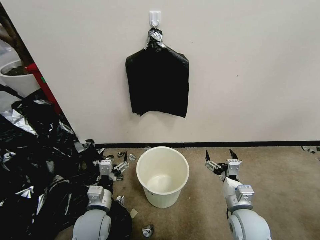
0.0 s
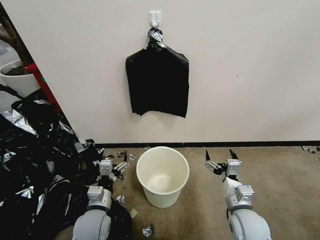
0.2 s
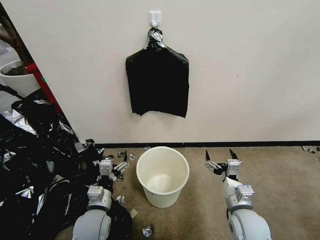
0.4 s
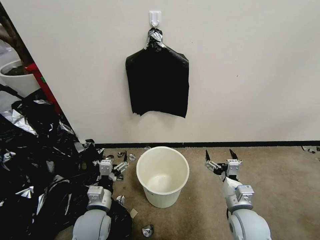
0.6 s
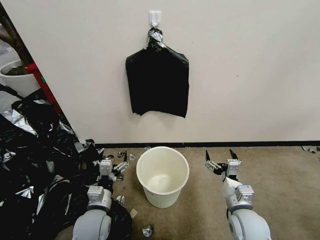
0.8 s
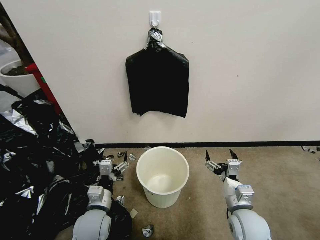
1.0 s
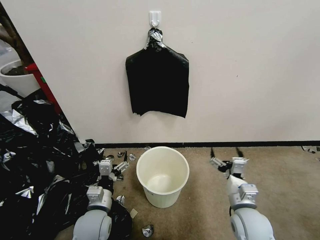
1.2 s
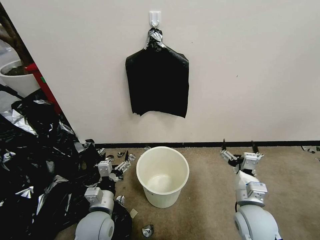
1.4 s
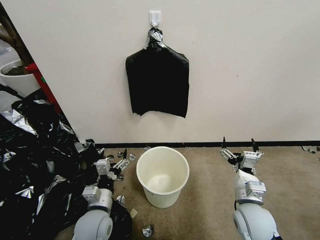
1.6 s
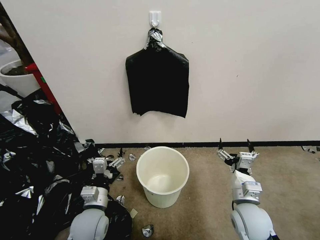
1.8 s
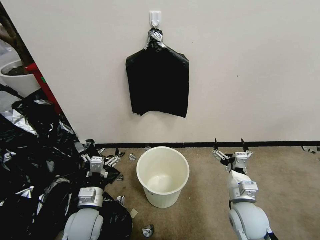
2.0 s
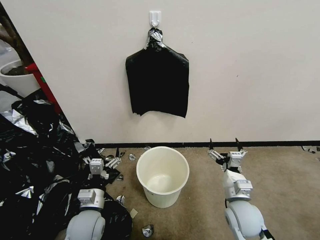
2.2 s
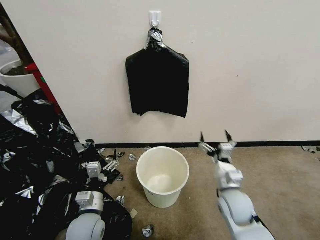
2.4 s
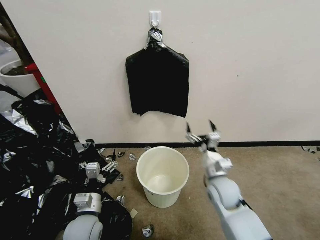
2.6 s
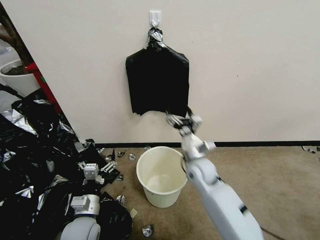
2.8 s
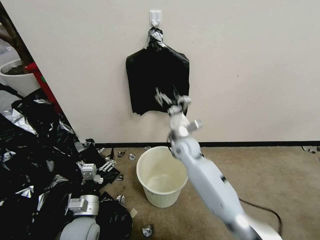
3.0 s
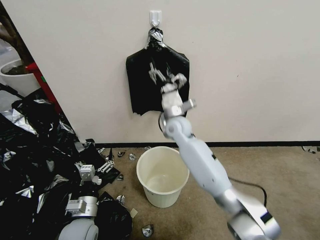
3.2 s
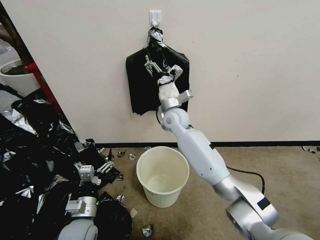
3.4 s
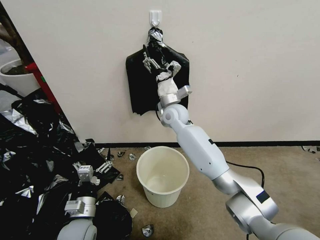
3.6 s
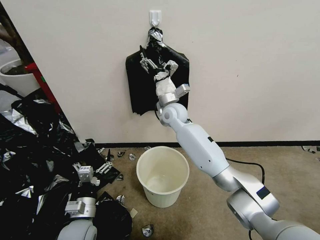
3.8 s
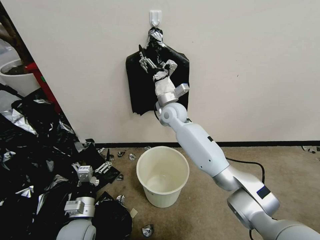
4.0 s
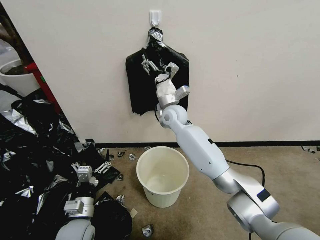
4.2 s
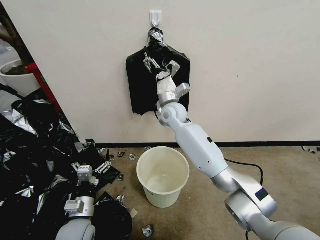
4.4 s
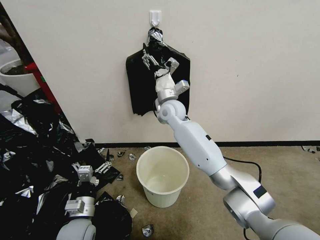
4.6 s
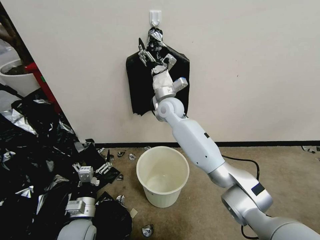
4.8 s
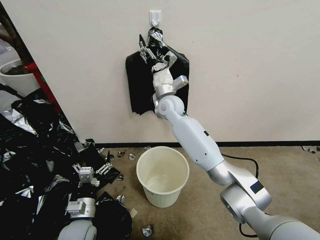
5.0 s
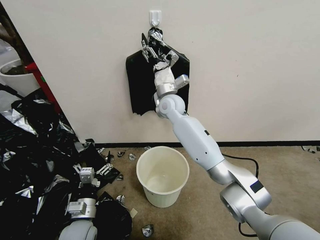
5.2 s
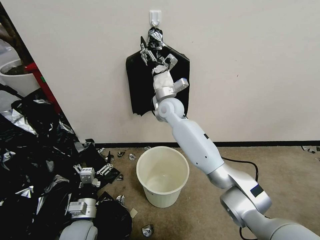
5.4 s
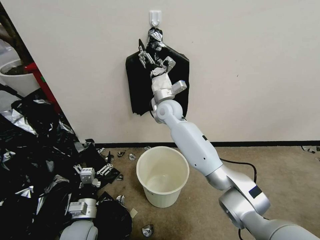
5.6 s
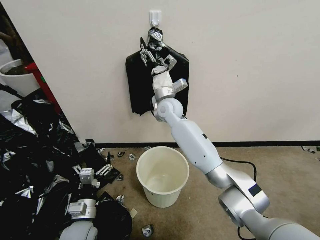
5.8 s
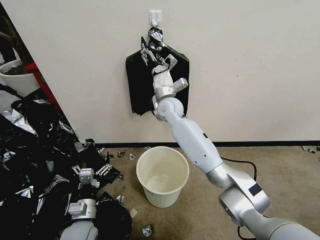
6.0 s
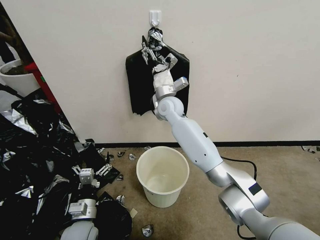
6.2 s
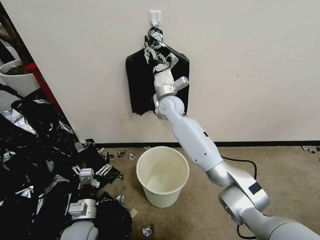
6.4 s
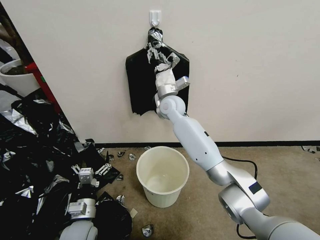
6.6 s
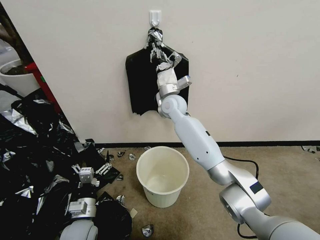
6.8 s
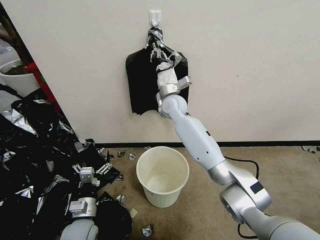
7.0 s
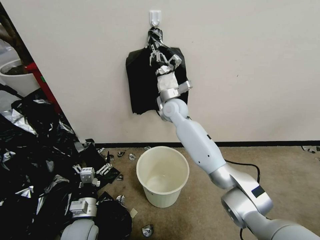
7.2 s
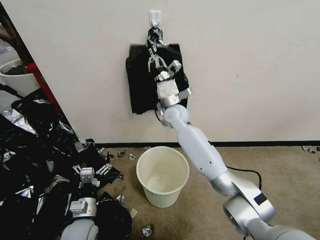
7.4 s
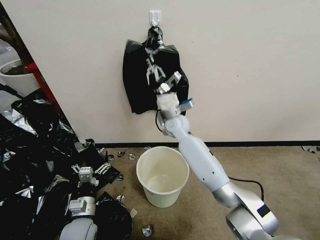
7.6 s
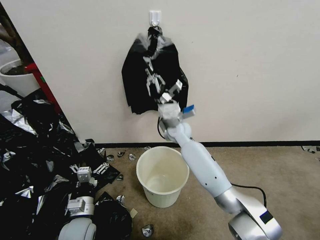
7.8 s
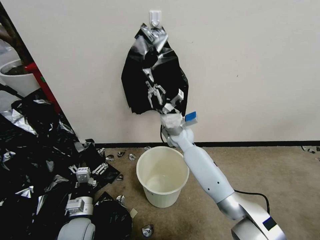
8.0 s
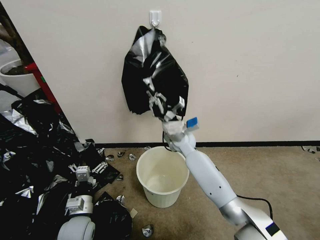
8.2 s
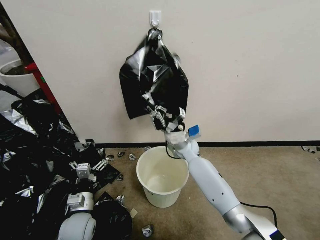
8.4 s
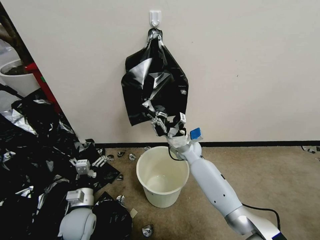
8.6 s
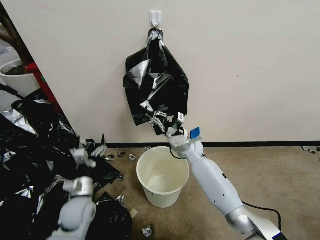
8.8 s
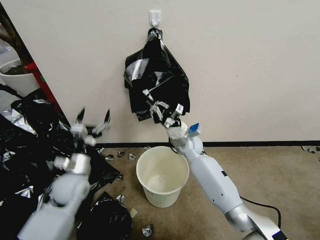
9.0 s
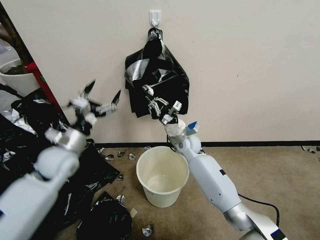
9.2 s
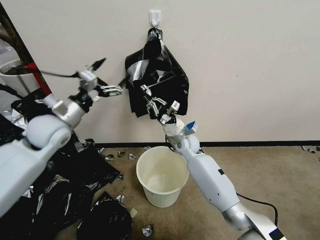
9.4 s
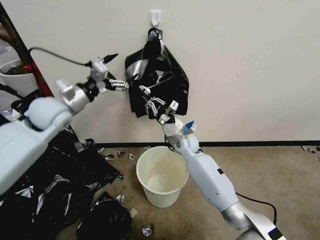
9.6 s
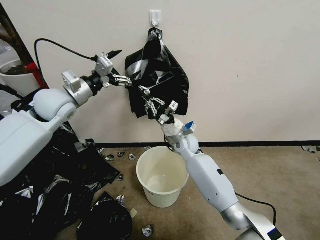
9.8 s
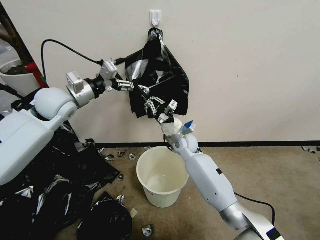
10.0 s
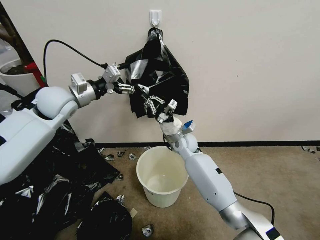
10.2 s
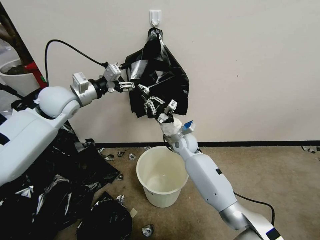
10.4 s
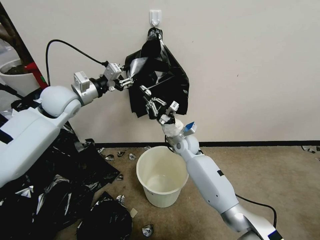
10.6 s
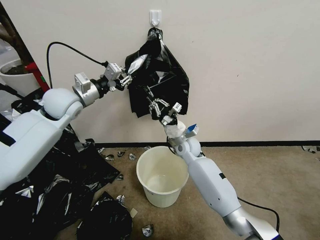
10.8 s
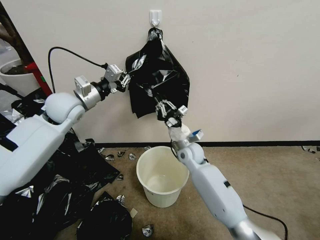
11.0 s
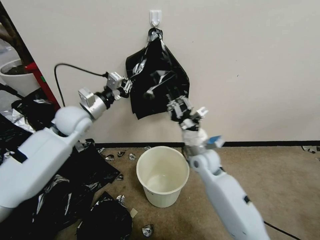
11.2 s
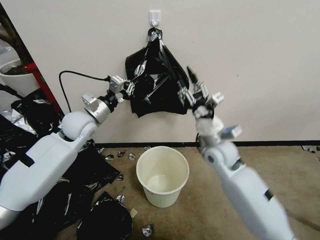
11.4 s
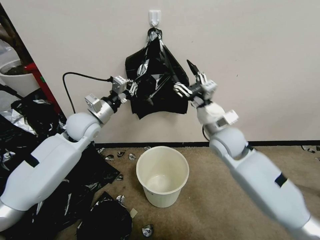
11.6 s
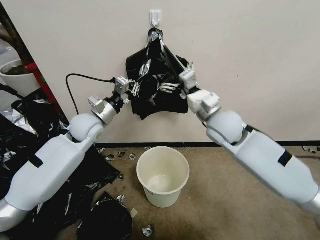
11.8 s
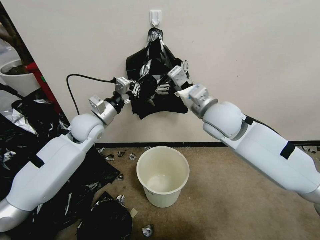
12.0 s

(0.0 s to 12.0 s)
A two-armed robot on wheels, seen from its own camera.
Task of the whole recording: Place a trash bag onto the trash bin.
1.6 s - 3.0 s: The right gripper moves forward and to the left, roughly 30 cm.
3.0 s - 4.4 s: The right gripper is displaced upward and forward by about 15 cm.
4.4 s - 6.0 s: The grippers move only a little.
6.0 s - 7.6 s: The right gripper heads downward, covering about 5 cm, and closes its fingers.
7.6 s - 9.0 s: The right gripper goes some 10 cm downward and to the right, while the left gripper shifts roughly 15 cm forward and upward.
9.0 s - 10.4 s: The left gripper travels upward and forward by approximately 25 cm, and closes up.
10.4 s - 12.0 s: The right gripper shifts about 20 cm upward, and opens up; the left gripper is displaced downward and to the right by roughly 10 cm, and closes up.

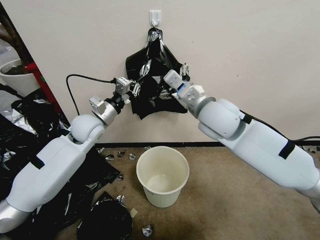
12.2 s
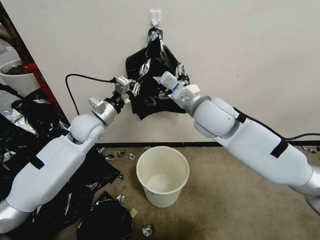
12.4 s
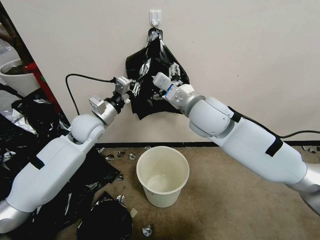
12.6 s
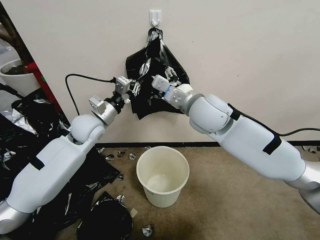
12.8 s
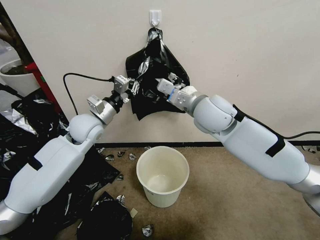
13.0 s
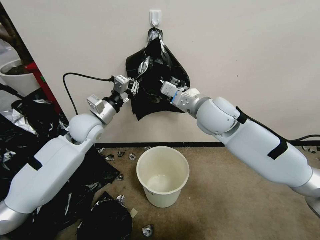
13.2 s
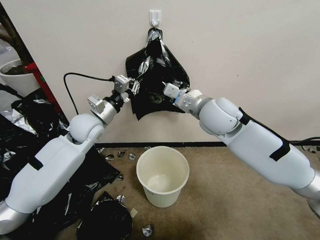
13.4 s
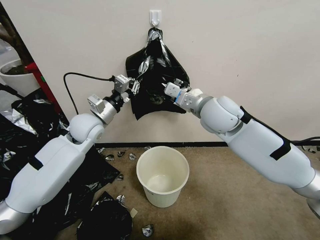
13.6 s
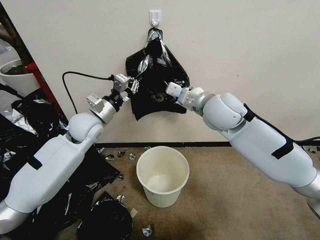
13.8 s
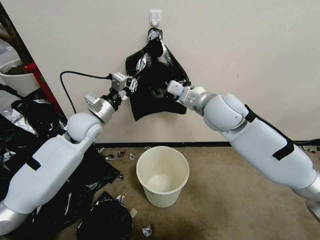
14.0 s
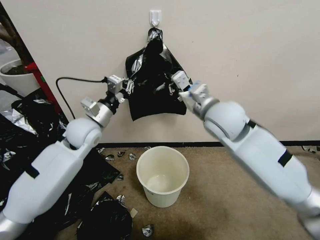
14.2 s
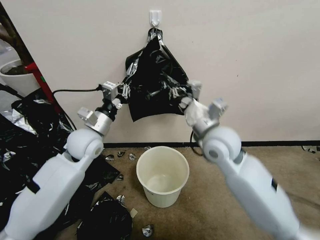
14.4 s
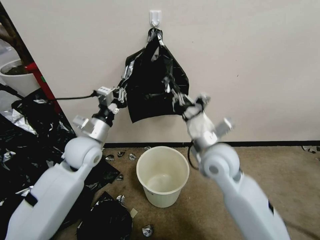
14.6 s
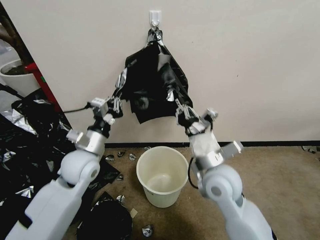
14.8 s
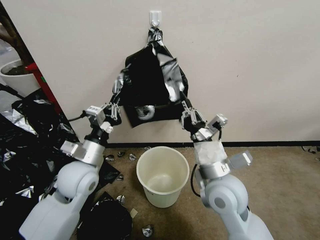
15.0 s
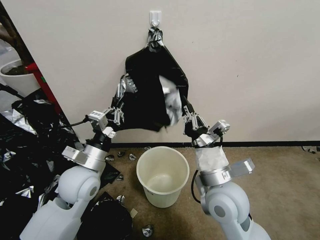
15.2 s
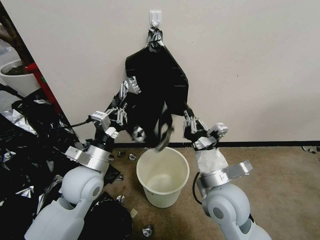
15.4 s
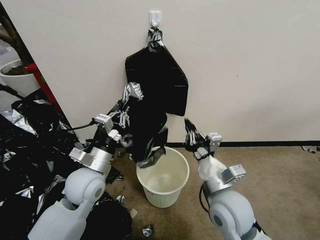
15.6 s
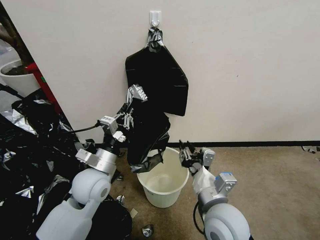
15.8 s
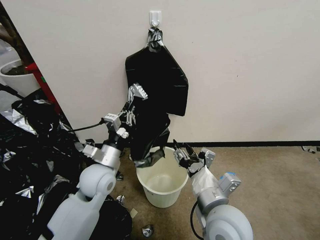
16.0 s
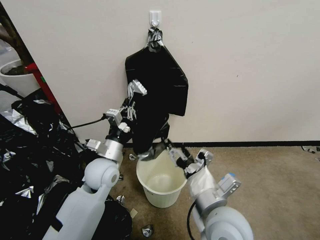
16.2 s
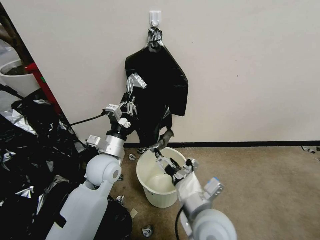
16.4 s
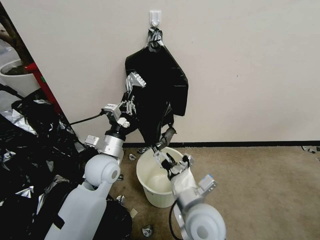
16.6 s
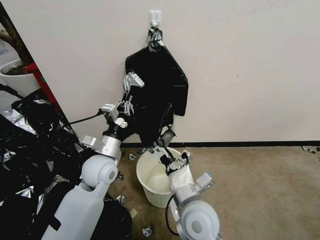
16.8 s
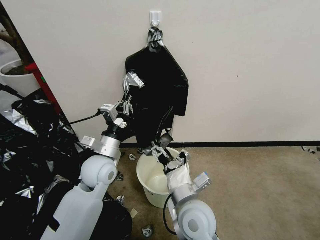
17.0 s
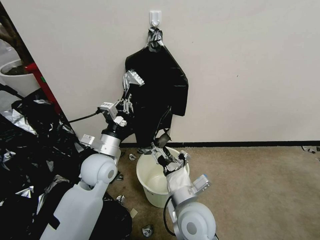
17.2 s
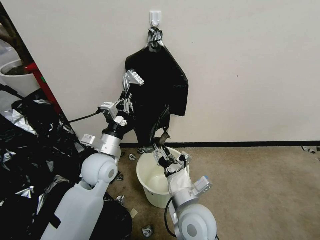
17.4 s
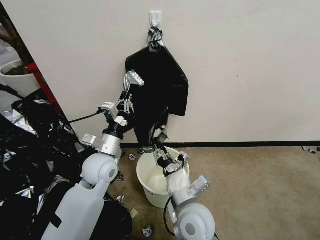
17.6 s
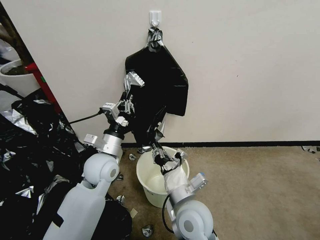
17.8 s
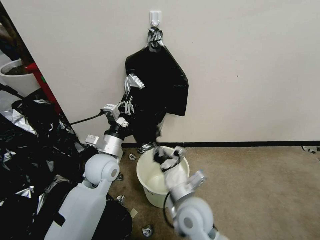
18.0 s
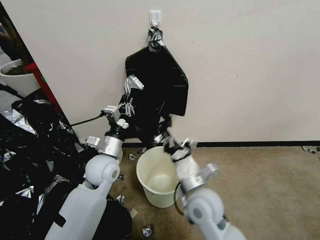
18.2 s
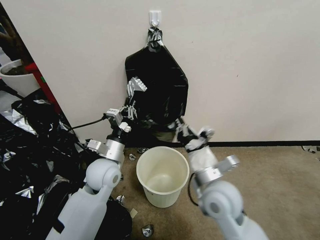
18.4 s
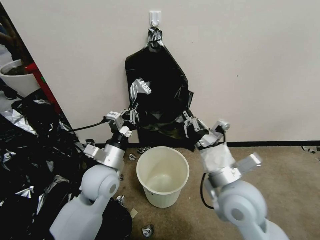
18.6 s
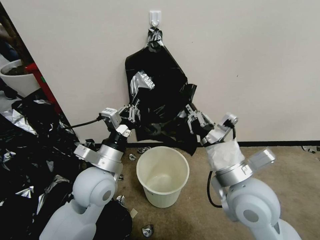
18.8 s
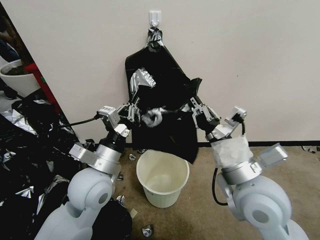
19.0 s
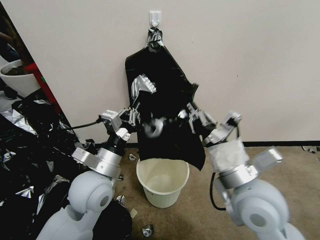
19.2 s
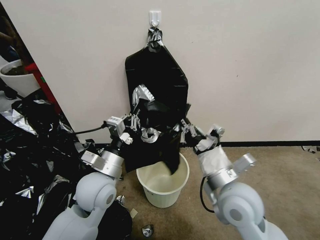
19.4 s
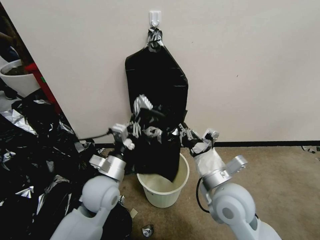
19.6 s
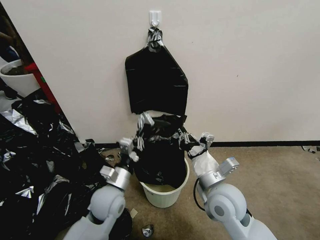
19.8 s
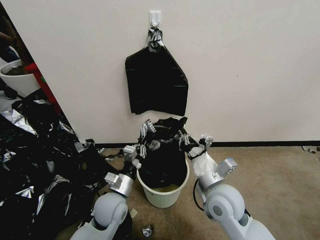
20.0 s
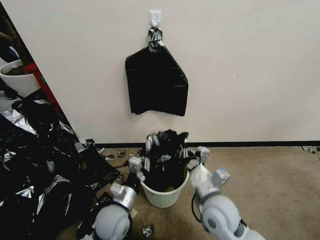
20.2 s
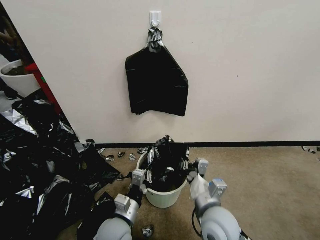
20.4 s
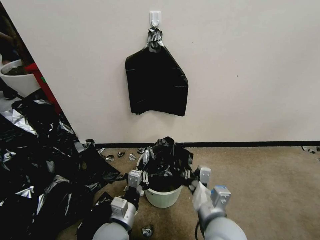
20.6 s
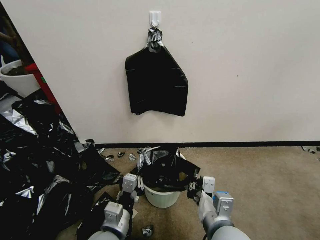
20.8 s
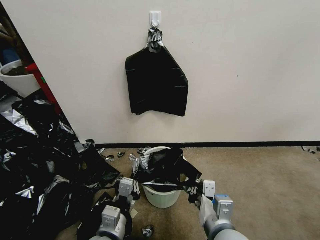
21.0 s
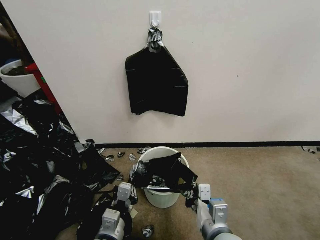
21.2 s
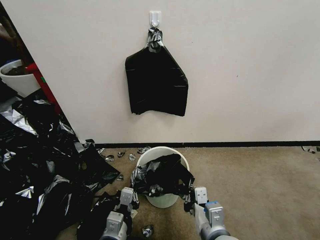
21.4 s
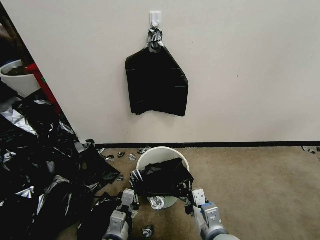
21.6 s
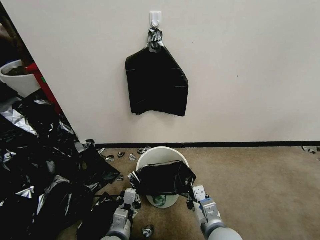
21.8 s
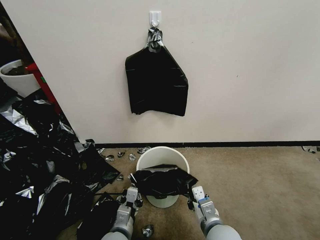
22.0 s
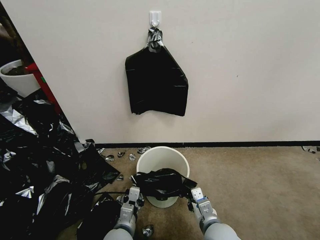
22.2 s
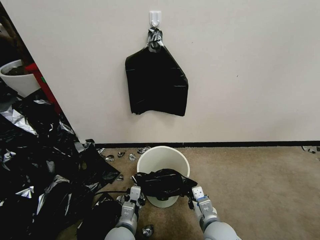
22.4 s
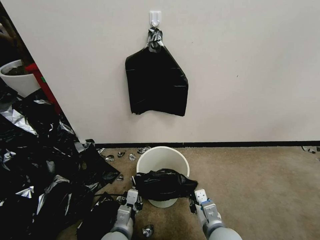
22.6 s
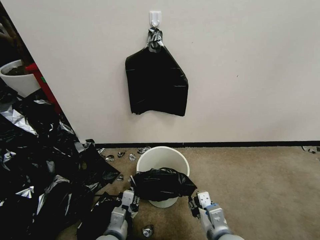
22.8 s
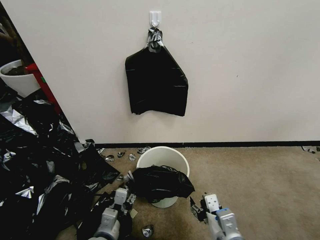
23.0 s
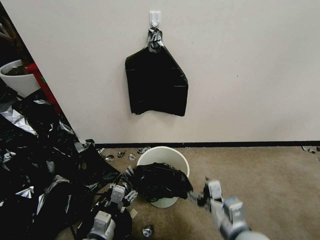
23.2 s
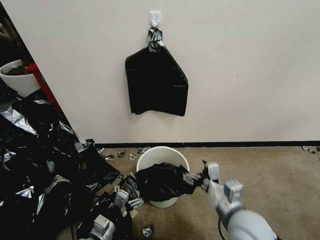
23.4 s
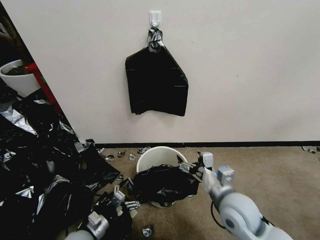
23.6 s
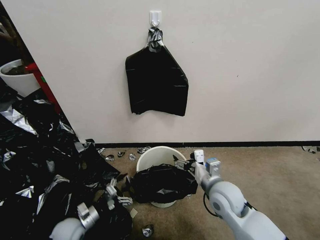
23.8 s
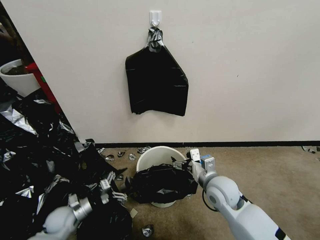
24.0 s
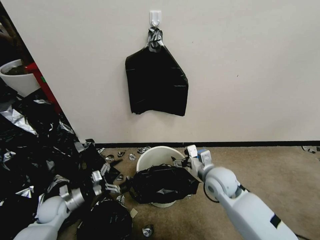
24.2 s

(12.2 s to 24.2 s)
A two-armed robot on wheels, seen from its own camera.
Task of the whole recording: Place a trash bag onto the trash bin.
12.2 s - 13.8 s: The right gripper closes its fingers.
13.8 s - 15.2 s: The left gripper travels backward by approximately 15 cm. Meanwhile the right gripper goes approximately 25 cm backward and downward.
15.2 s - 16.6 s: The left gripper is displaced forward by some 5 cm; the right gripper moves to the left, about 5 cm, and opens.
16.6 s - 18.2 s: The right gripper heads forward, covering about 5 cm, and closes up.
18.2 s - 19.8 s: The left gripper shifts about 10 cm backward and downward. Meanwhile the right gripper goes upward and returns, approximately 10 cm each way.
19.8 s - 21.2 s: Both grippers move backward, some 15 cm.
21.2 s - 22.6 s: Both grippers travel together downward, about 10 cm.
22.6 s - 24.2 s: The left gripper heads to the left and forward, covering roughly 25 cm, and opens up. Meanwhile the right gripper moves forward, about 15 cm, and opens its fingers.
